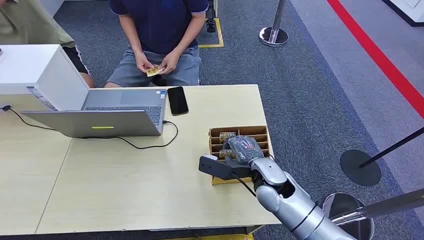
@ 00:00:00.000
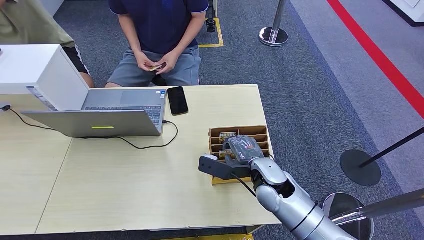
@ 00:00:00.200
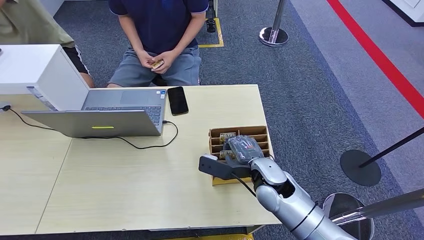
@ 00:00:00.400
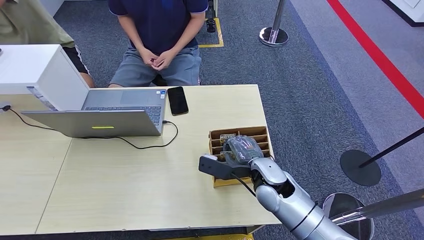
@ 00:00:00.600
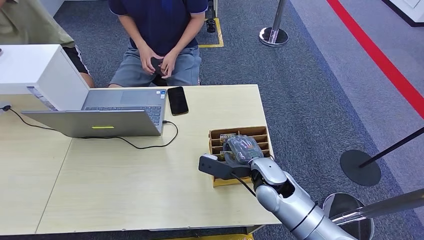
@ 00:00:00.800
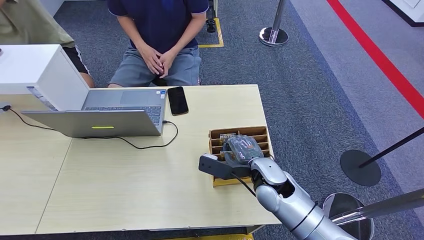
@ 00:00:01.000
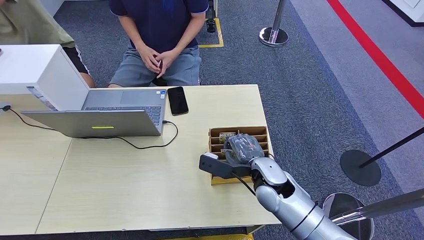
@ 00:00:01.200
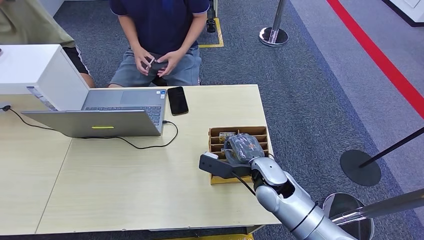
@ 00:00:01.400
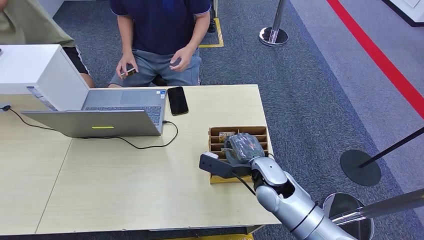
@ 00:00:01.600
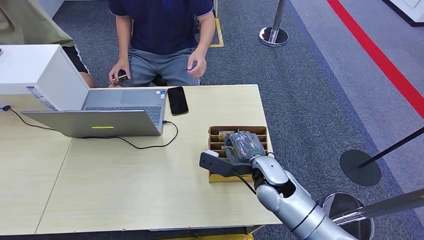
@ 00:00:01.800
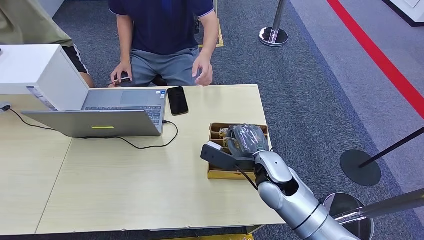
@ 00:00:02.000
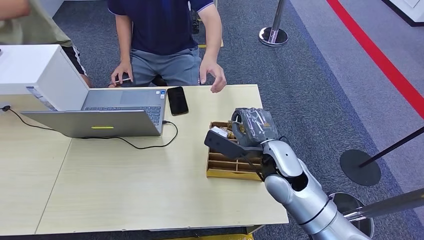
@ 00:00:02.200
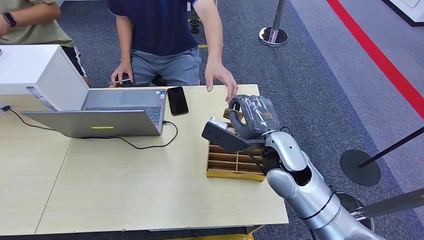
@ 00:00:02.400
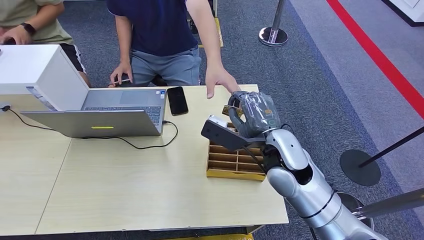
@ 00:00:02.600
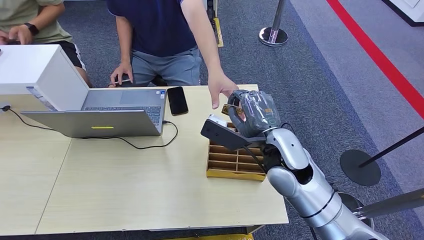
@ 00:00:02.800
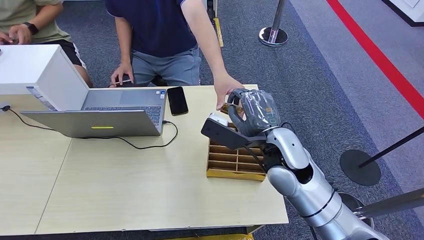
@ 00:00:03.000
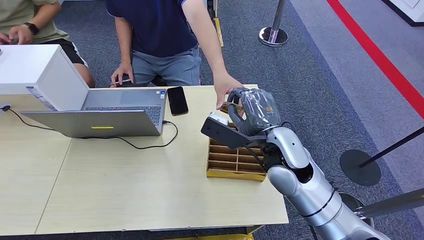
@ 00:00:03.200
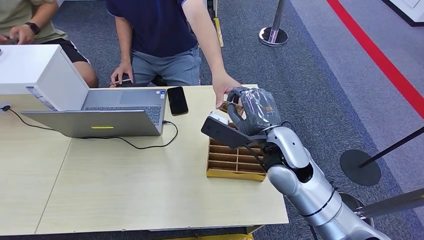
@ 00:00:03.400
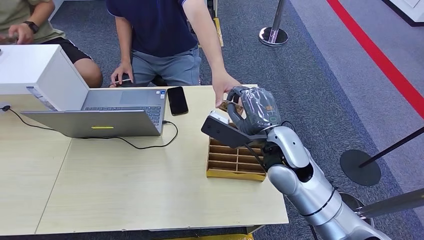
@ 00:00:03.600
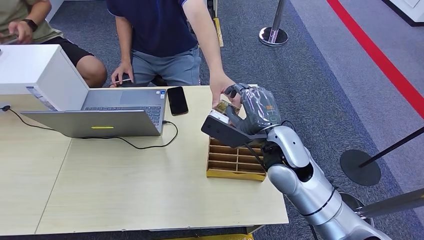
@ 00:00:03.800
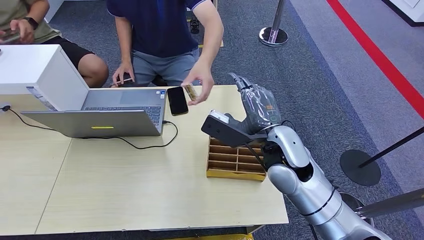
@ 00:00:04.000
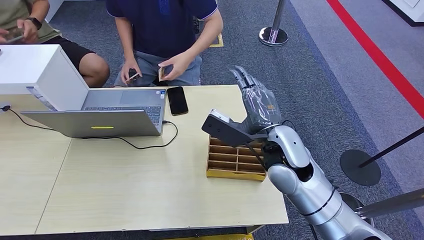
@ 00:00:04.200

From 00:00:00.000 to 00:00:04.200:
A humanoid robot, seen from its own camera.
Step, from 00:00:00.000 to 00:00:02.400: Pick up the room card from the card holder.
Step, from 00:00:02.600 to 00:00:04.200: Hand the room card to the target.
From 00:00:01.400 to 00:00:02.800: The right hand moves upward, roughly 10 cm.
From 00:00:02.800 to 00:00:04.200: Neither hand changes place.

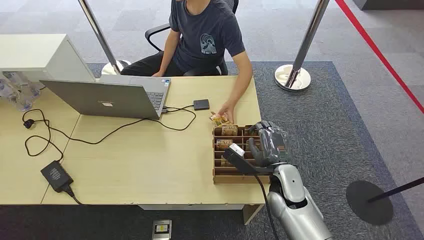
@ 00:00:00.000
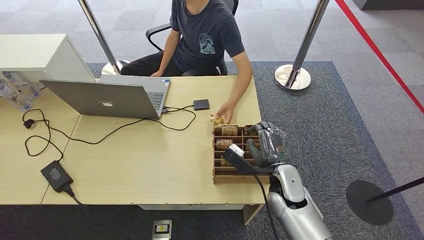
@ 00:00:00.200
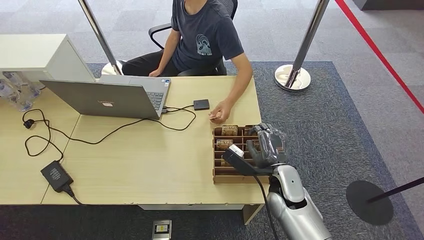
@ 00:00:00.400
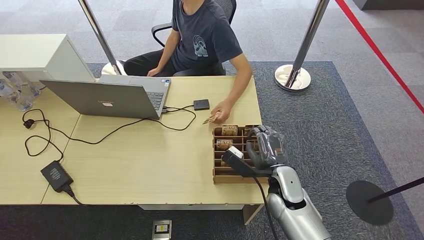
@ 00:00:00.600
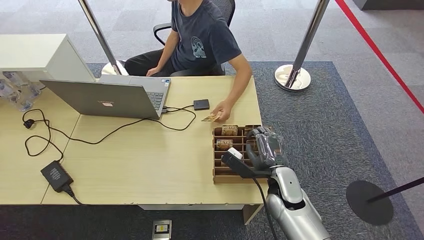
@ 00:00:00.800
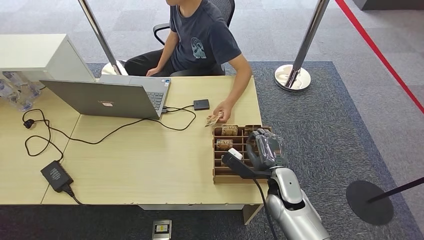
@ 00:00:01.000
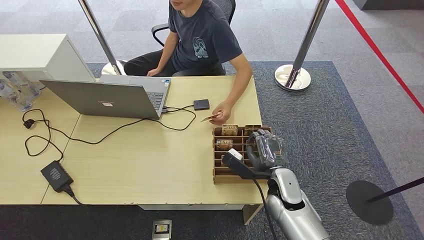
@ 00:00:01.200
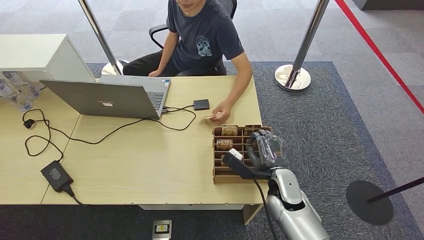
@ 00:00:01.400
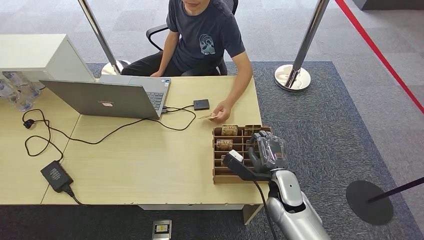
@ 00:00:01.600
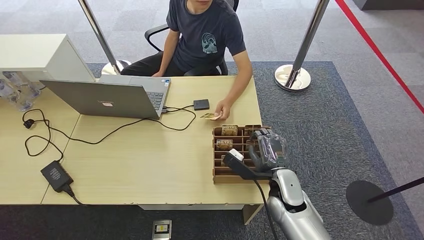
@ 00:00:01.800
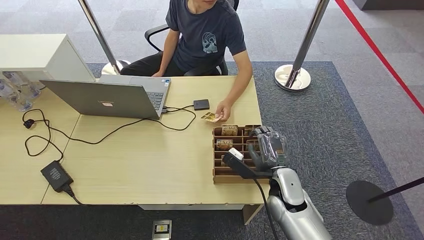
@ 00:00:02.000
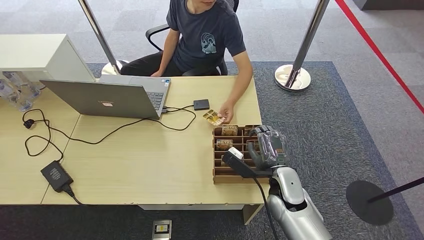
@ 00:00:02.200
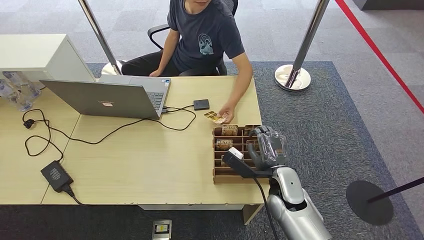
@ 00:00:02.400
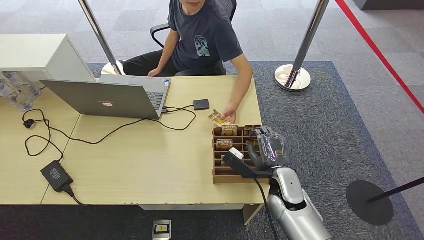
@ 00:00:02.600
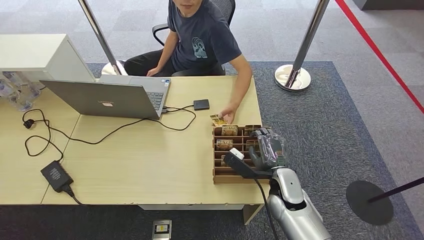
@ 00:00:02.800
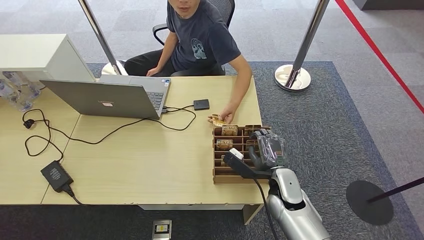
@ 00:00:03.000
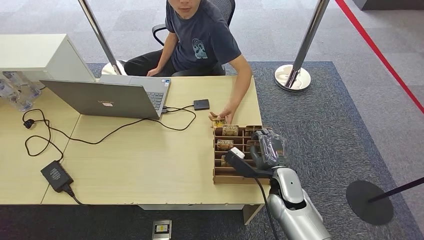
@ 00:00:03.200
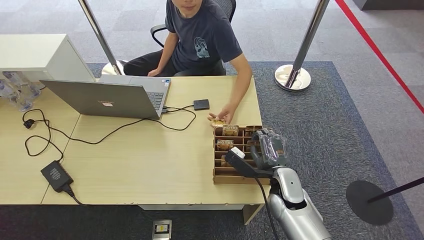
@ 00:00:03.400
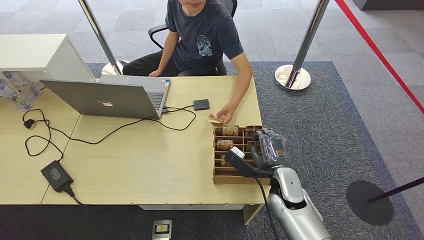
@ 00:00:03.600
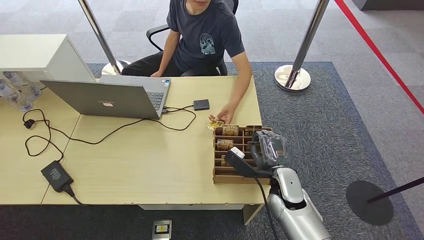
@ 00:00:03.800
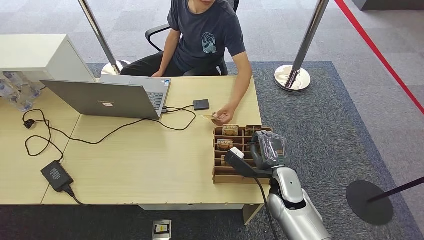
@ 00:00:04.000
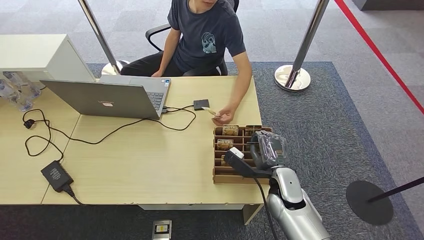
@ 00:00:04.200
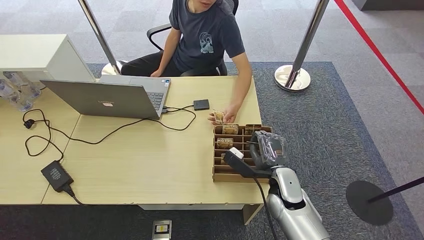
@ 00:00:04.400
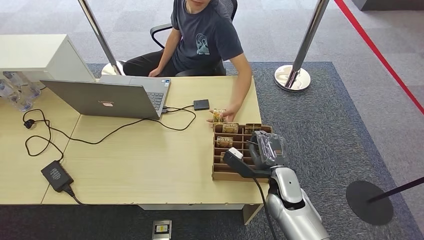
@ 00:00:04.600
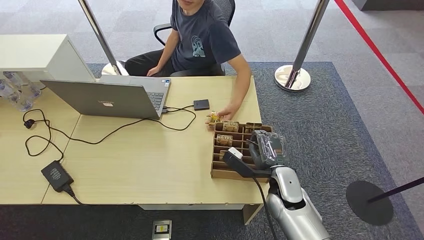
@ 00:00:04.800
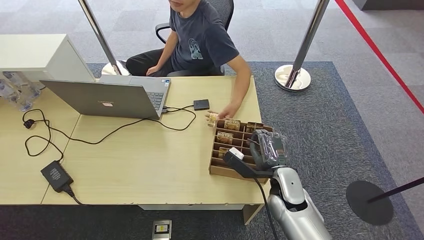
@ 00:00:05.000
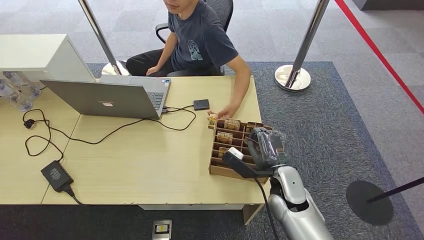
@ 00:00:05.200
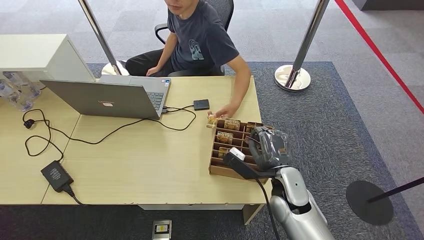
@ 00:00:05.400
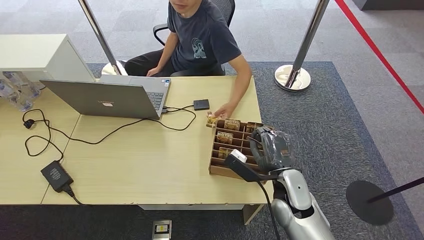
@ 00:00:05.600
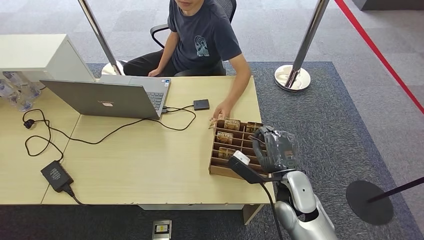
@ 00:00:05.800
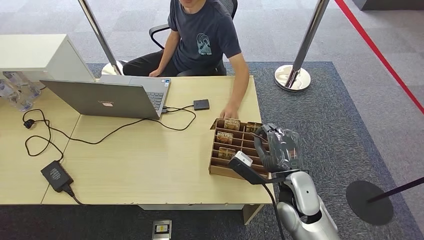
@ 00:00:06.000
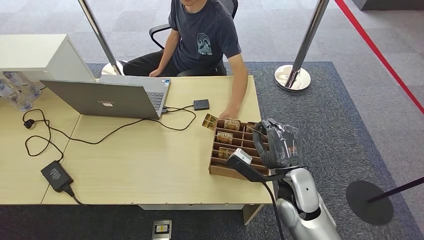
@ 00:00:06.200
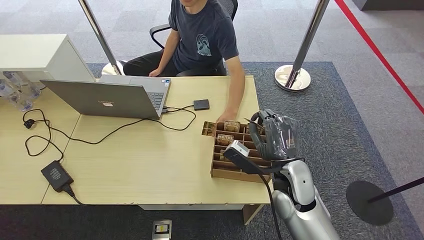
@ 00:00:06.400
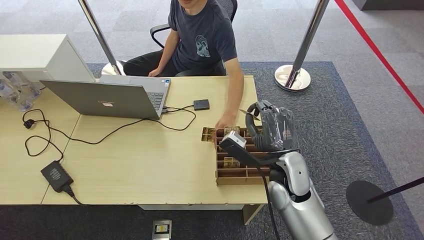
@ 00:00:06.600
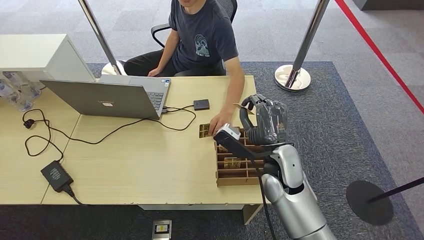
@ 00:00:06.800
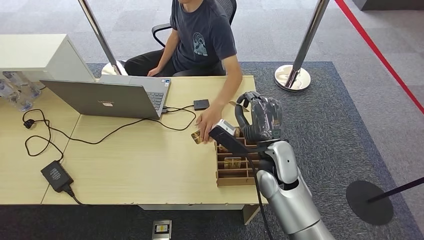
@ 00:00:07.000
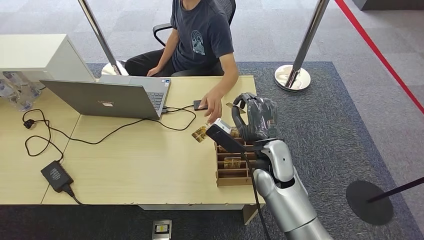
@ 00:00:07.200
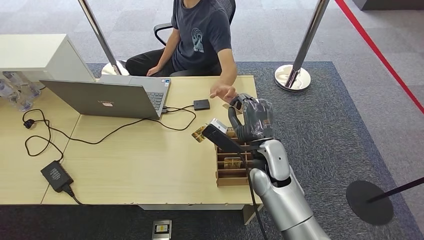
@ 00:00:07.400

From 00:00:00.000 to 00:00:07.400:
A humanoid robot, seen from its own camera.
Step, from 00:00:00.000 to 00:00:04.400: Pick up the room card from the card holder.
Step, from 00:00:04.600 to 00:00:07.400: Hand the room card to the target.
From 00:00:01.400 to 00:00:04.400: Both hands stay about where they are.
From 00:00:04.400 to 00:00:06.000: The right hand ends up some 5 cm from where it was.
From 00:00:06.000 to 00:00:07.400: The right hand heads to the left and forward, covering some 10 cm.
